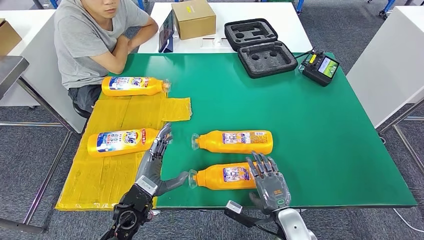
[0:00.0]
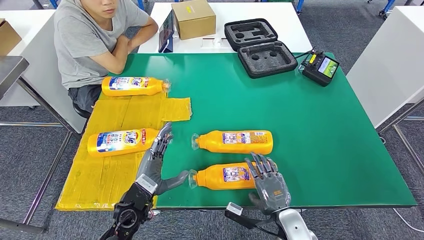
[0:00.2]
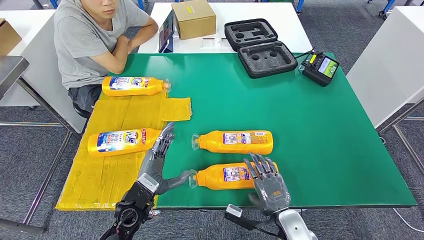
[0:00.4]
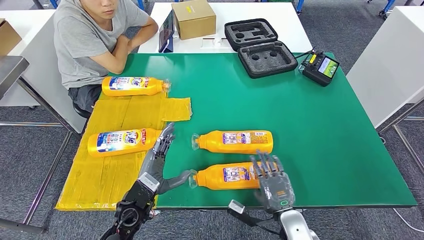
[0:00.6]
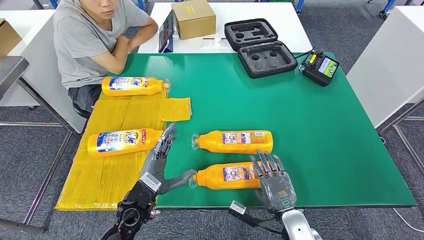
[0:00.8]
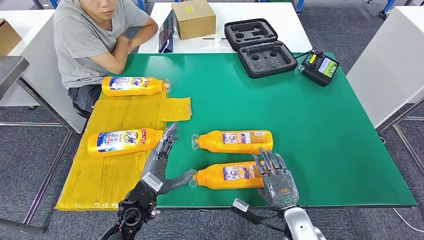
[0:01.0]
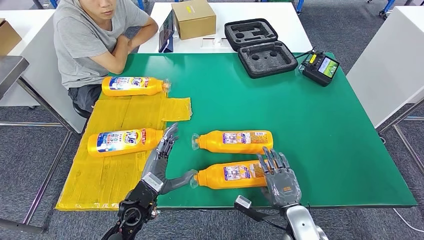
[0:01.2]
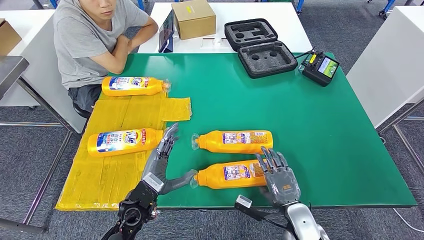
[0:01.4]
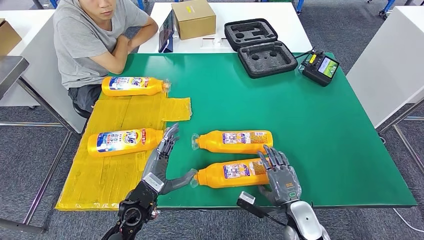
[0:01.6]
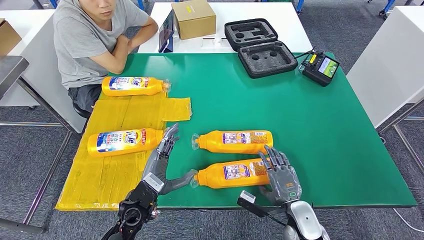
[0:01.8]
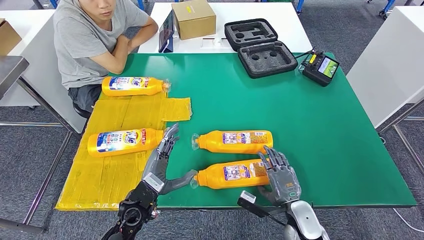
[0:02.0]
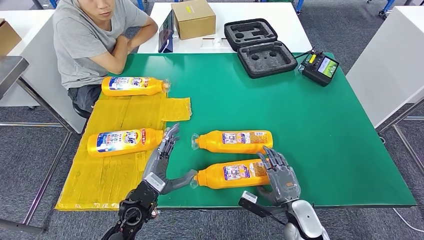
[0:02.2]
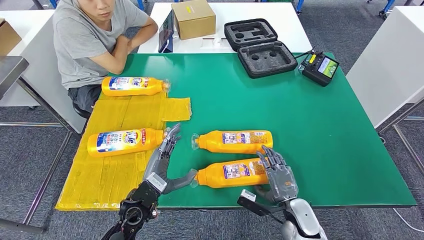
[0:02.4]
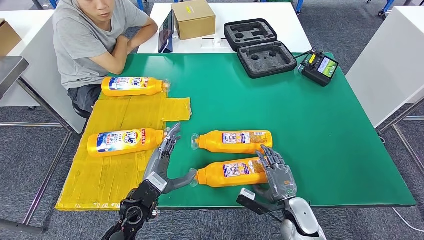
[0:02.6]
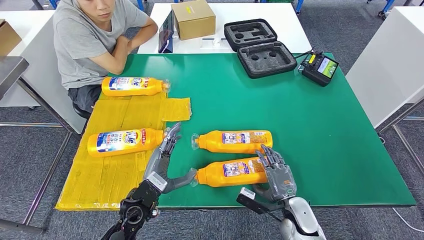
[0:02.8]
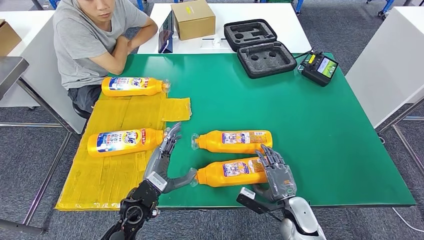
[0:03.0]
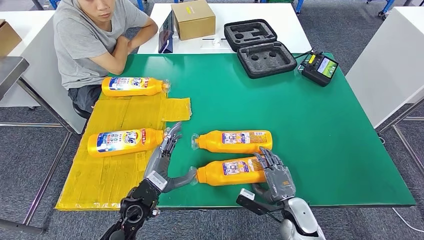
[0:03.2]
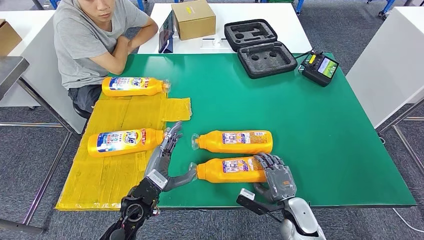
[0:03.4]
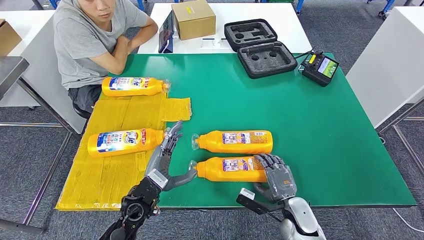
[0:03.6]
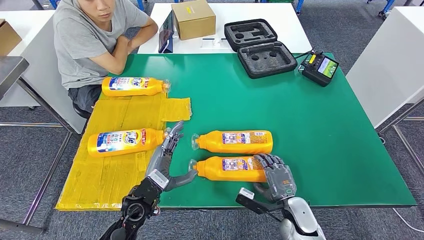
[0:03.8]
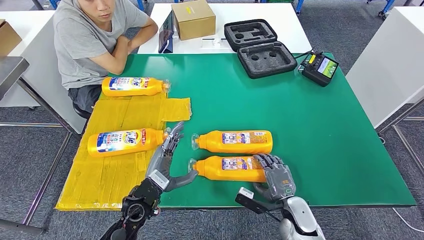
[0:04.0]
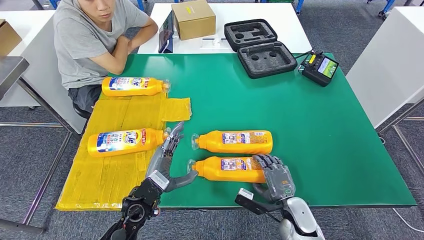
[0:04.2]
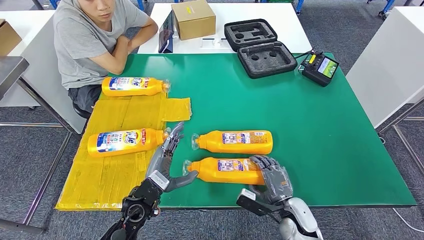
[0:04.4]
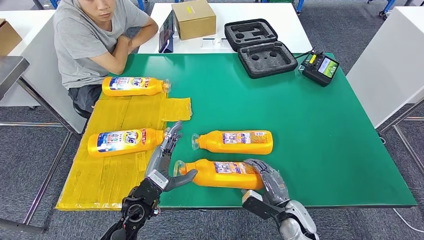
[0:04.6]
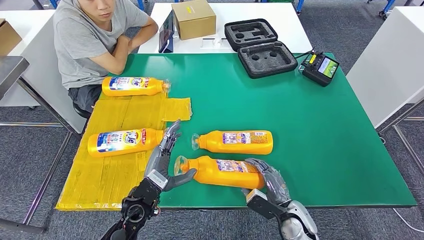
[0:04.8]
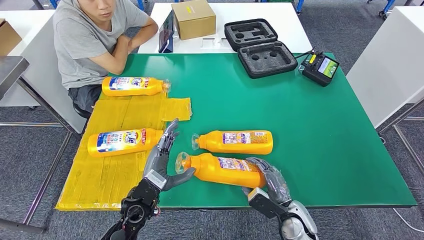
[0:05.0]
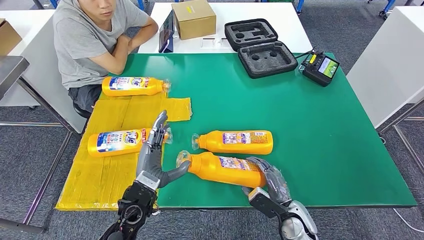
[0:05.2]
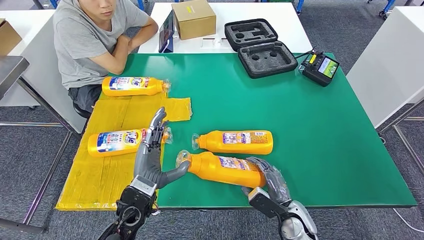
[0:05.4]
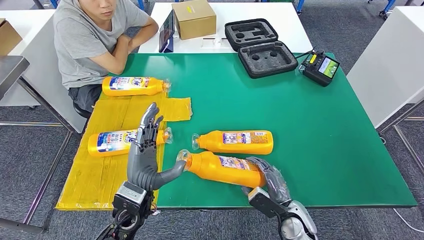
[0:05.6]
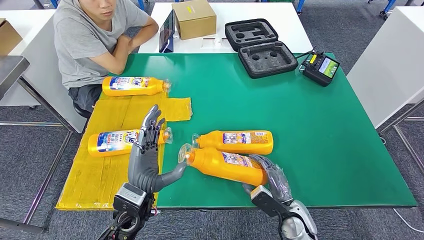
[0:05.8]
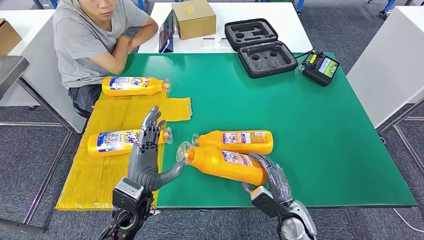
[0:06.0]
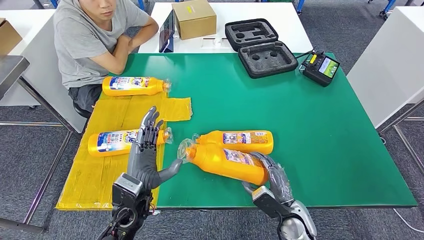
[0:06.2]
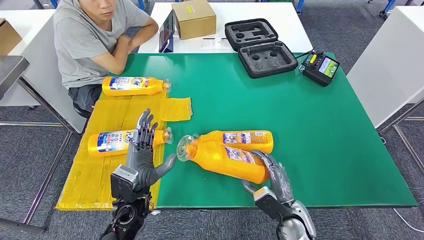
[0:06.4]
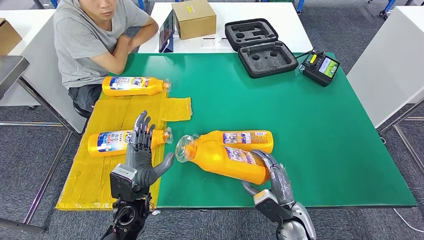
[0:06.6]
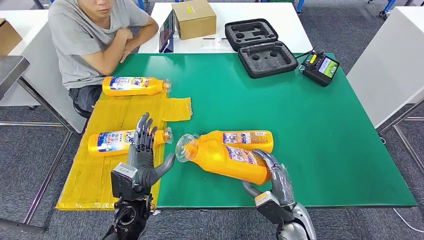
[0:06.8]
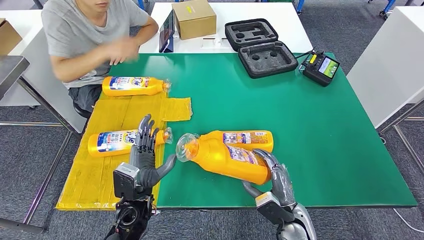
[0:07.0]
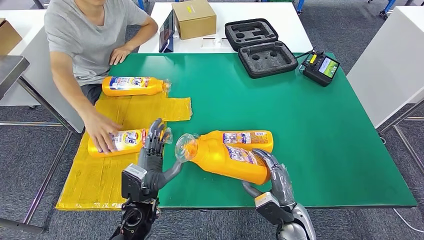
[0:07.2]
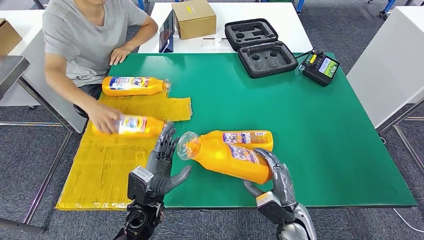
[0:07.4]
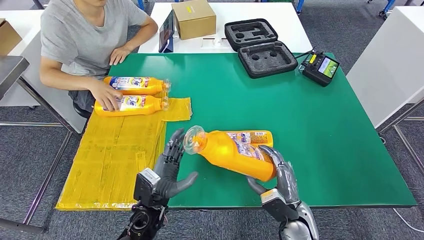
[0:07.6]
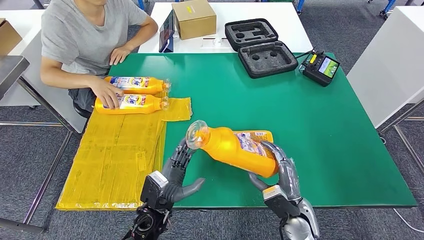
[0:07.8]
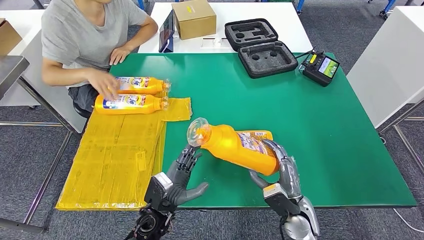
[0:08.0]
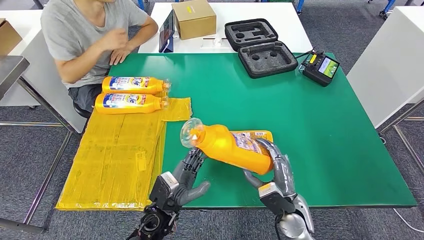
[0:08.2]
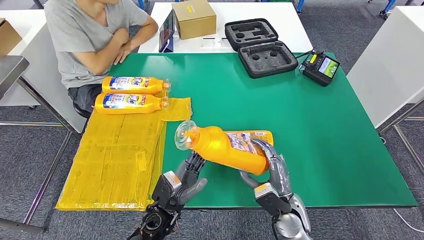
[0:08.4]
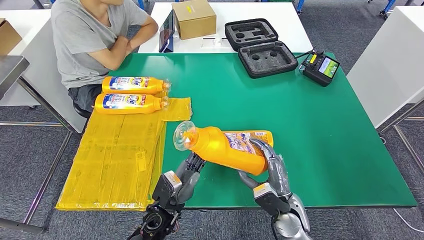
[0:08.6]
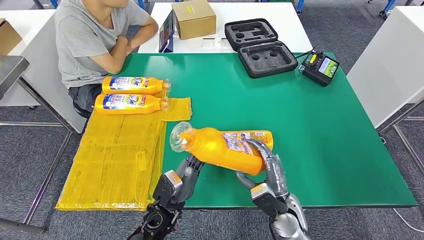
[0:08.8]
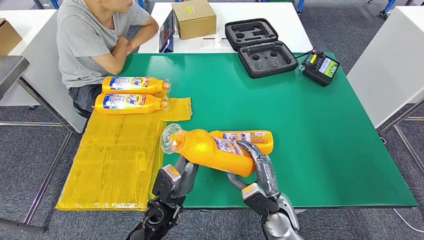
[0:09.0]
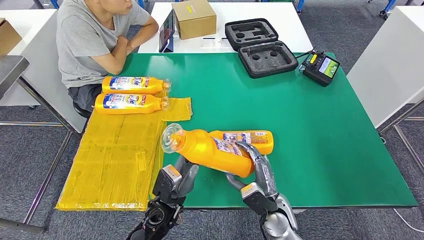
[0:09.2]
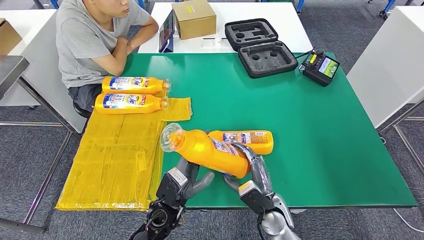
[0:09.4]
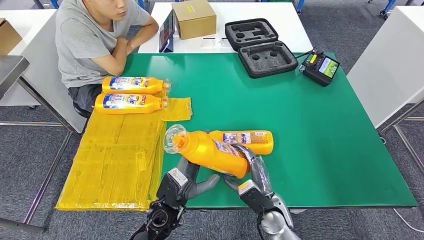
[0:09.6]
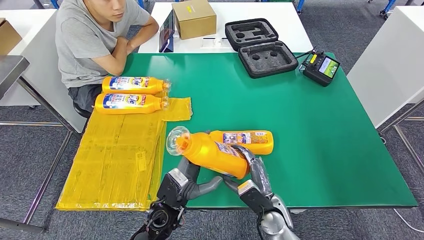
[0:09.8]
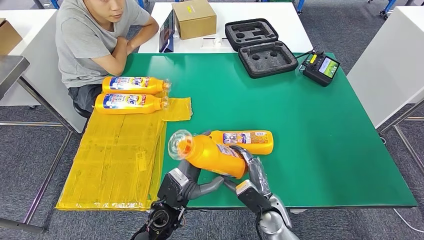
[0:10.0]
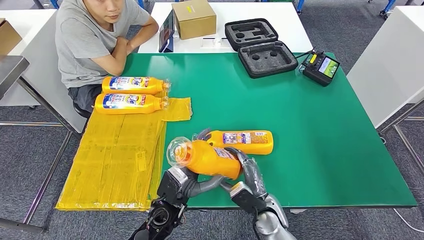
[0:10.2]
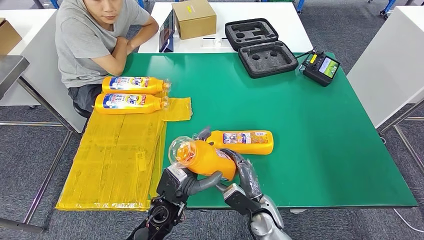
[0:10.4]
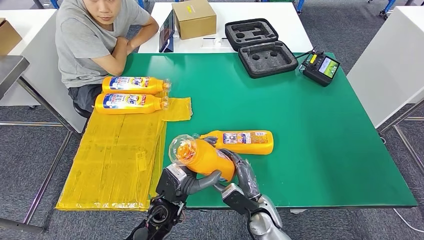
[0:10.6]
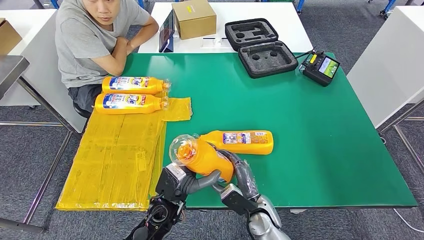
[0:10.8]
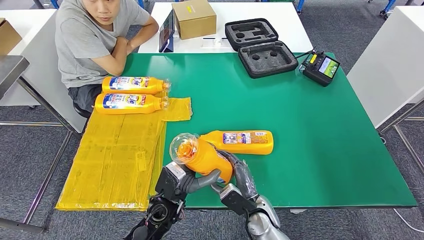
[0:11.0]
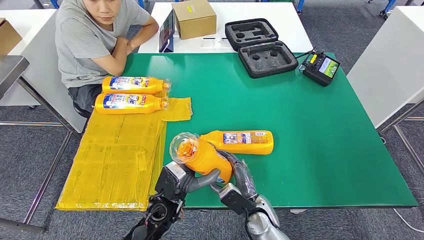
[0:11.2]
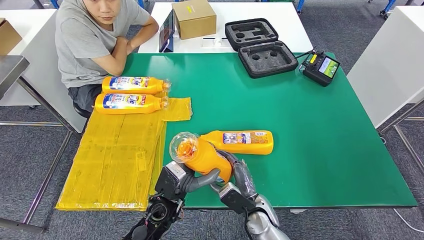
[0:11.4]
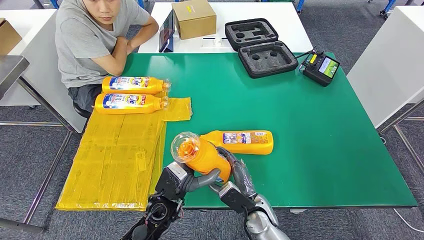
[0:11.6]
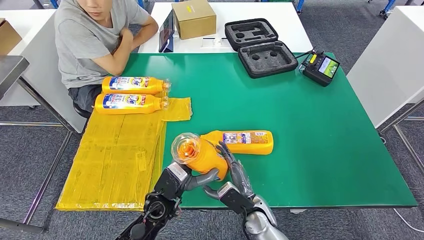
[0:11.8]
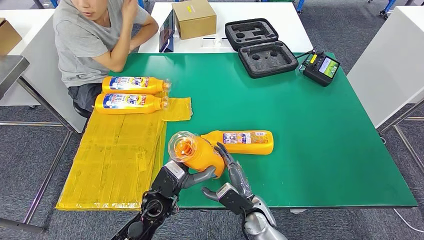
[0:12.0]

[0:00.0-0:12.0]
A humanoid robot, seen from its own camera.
Step, 0:00.0 to 0:08.8: Pick up the fast-moving consumer goods bottle from the table.
0:00.0 to 0:03.0: The hands move only a little.
0:03.0 to 0:04.4: The hands make only small movements.
0:06.0 to 0:07.6: The left hand heads downward, covering roughly 5 cm.
0:07.6 to 0:09.0: The right hand ends up some 5 cm from where it was.
0:09.0 to 0:10.4: The hands move only a little.
0:10.4 to 0:12.0: The hands stay close to where they were, moving slightly.

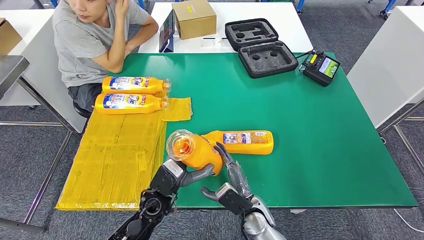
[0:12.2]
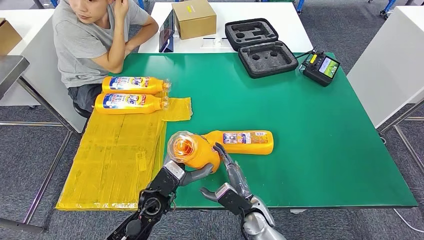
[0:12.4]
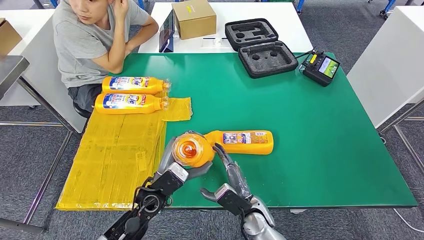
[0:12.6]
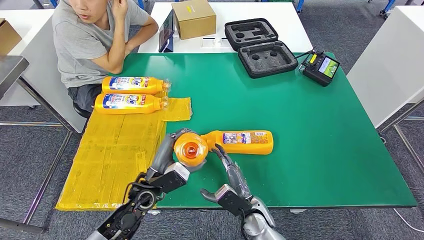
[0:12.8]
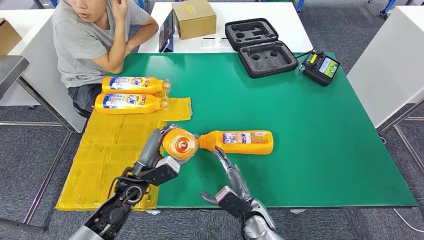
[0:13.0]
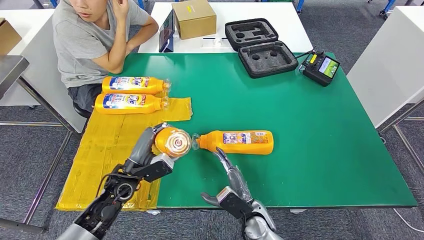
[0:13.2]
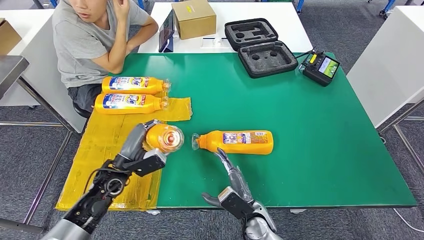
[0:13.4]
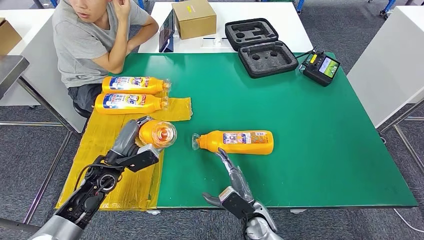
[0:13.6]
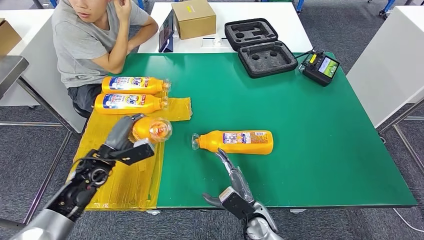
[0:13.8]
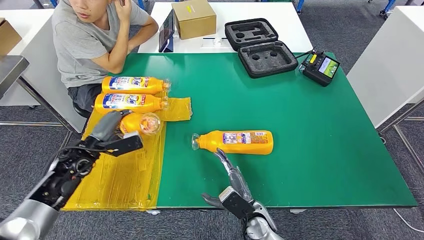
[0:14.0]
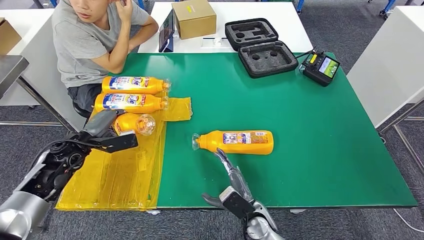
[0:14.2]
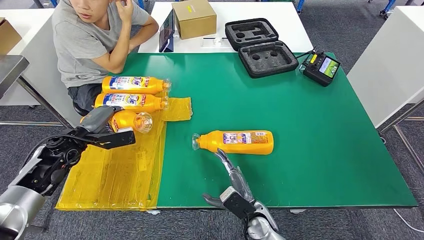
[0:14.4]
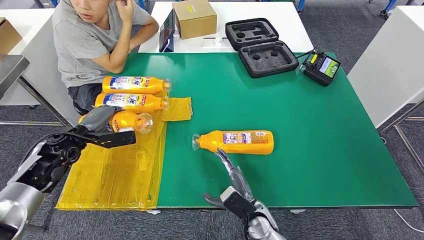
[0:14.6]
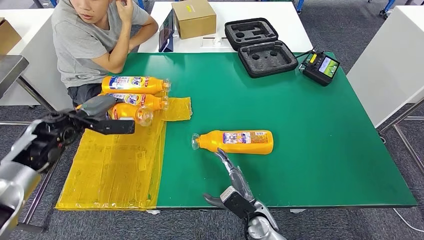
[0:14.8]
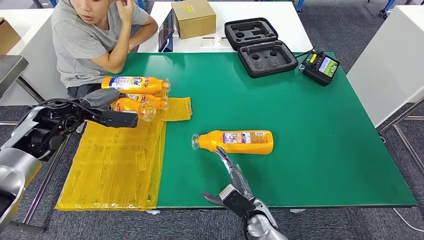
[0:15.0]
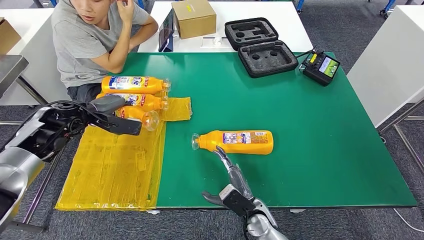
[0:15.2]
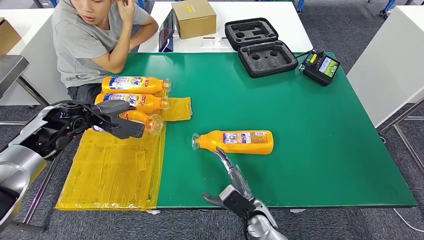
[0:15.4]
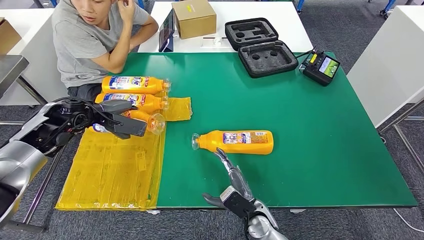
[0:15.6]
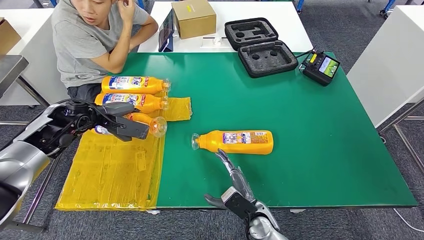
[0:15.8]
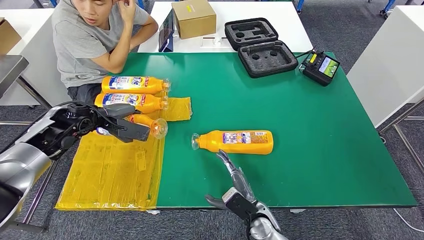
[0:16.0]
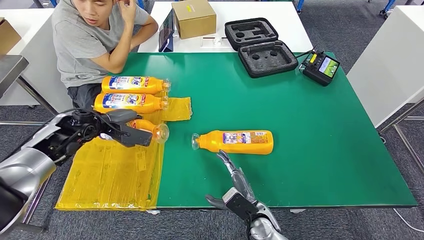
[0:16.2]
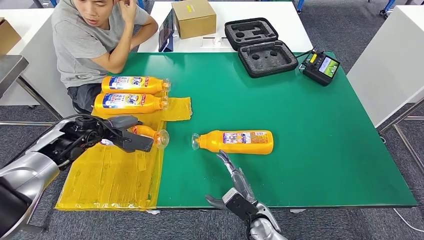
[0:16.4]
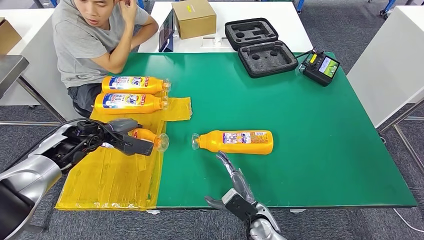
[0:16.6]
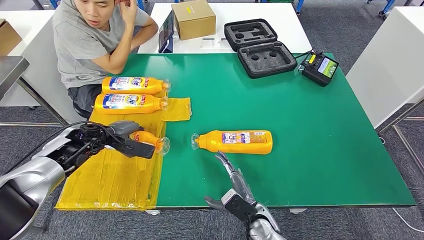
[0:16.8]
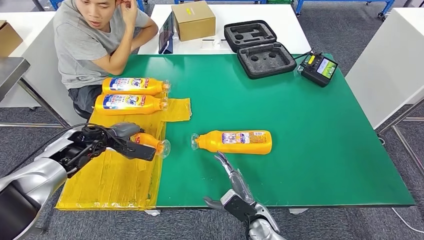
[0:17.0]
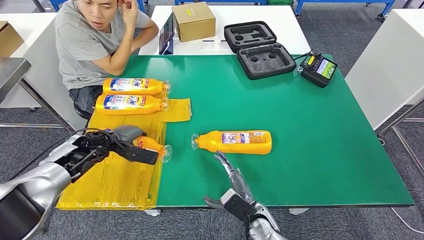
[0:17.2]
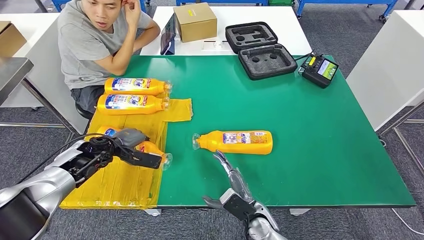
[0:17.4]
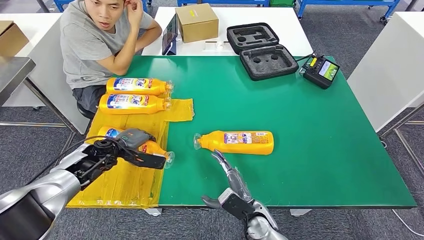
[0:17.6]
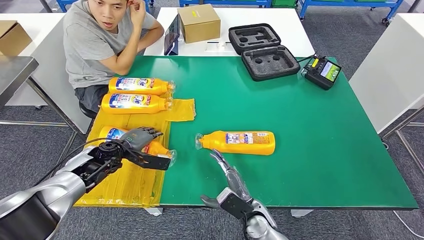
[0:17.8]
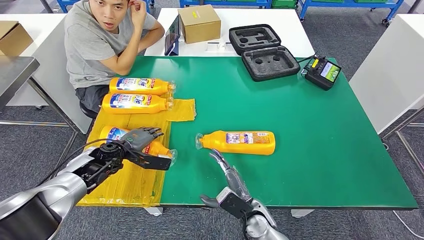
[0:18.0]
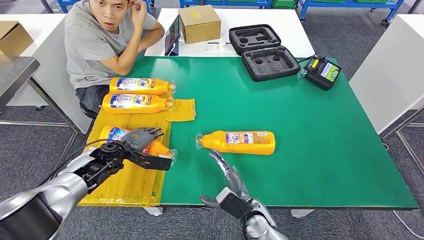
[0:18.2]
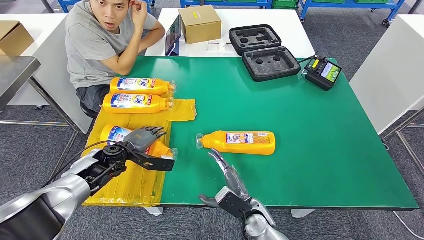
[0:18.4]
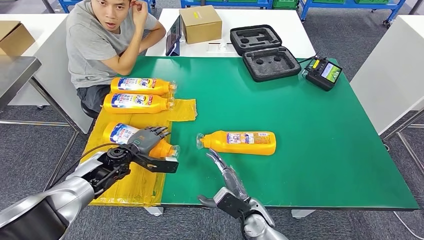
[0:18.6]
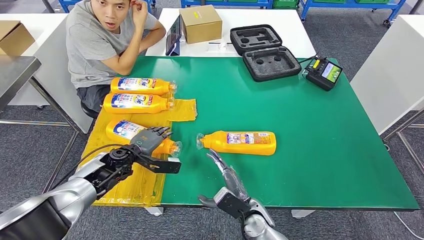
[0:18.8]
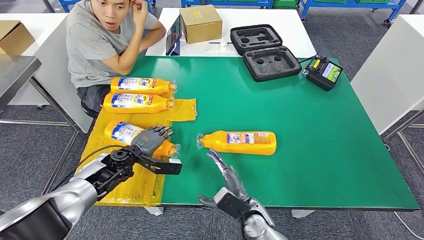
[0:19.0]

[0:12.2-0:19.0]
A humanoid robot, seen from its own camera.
Step, 0:12.2 to 0:18.2: Flip the fast-moving consumer goods bottle to the front side.
0:12.2 to 0:13.6: The left hand moves to the left and forward, approximately 15 cm.
0:13.6 to 0:15.0: The left hand is displaced upward, forward and to the left by some 20 cm.
0:15.0 to 0:16.2: The left hand changes place by approximately 5 cm.
